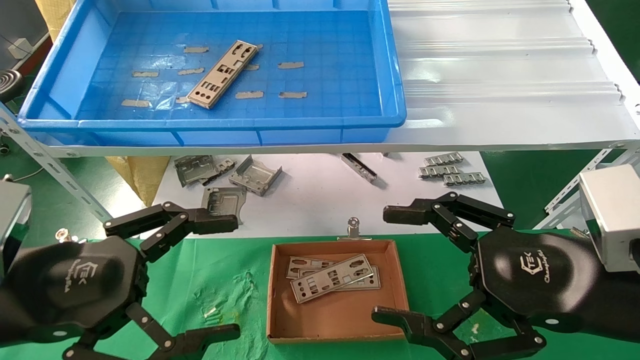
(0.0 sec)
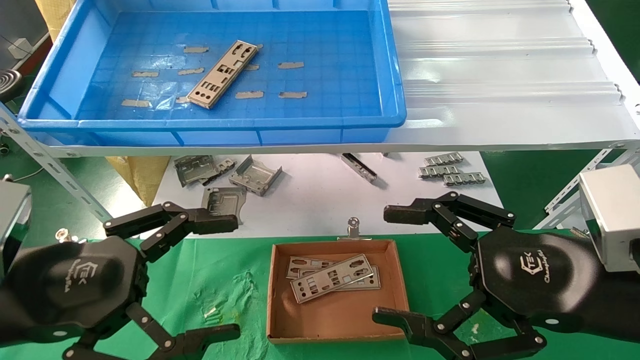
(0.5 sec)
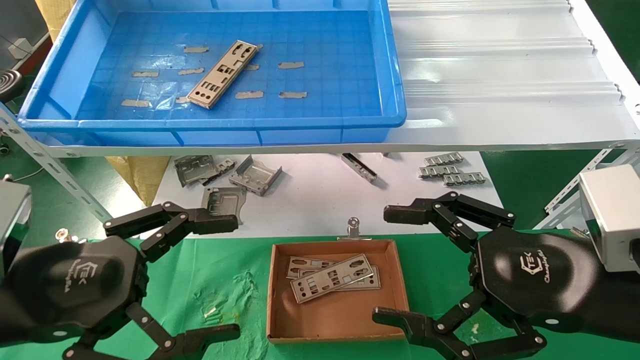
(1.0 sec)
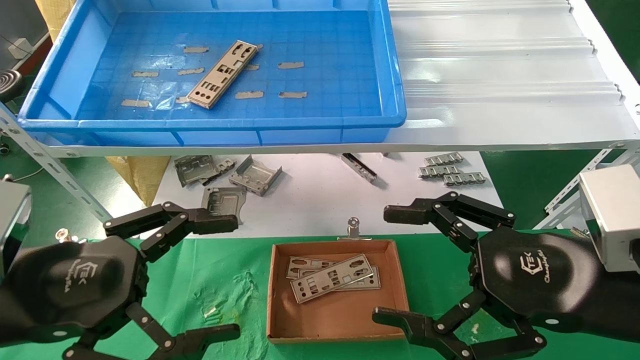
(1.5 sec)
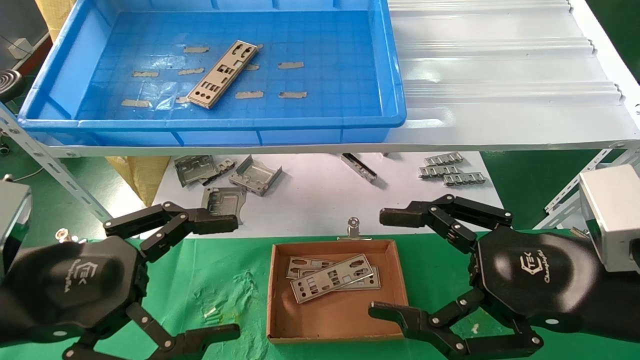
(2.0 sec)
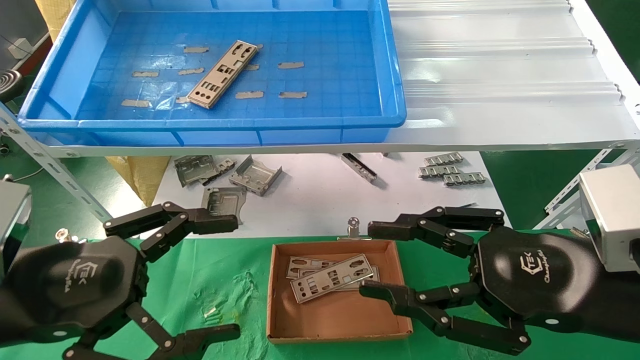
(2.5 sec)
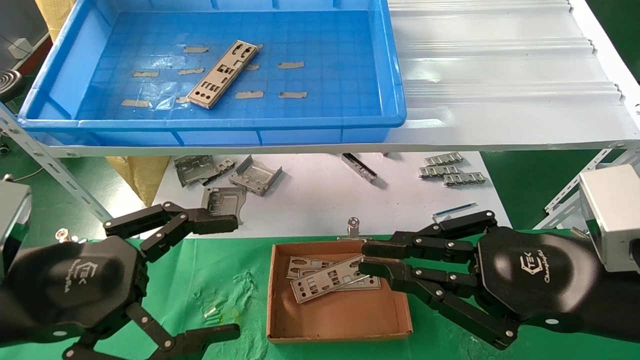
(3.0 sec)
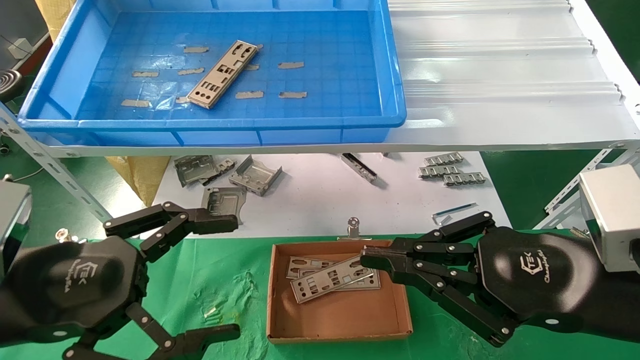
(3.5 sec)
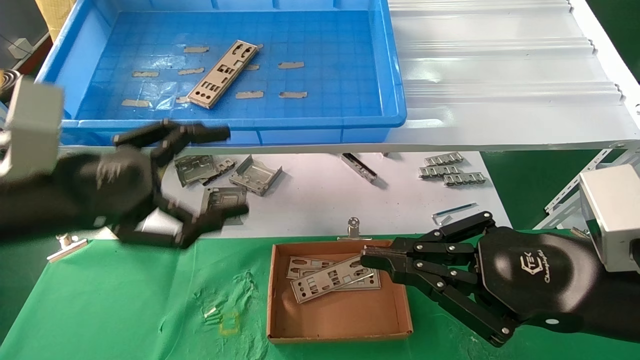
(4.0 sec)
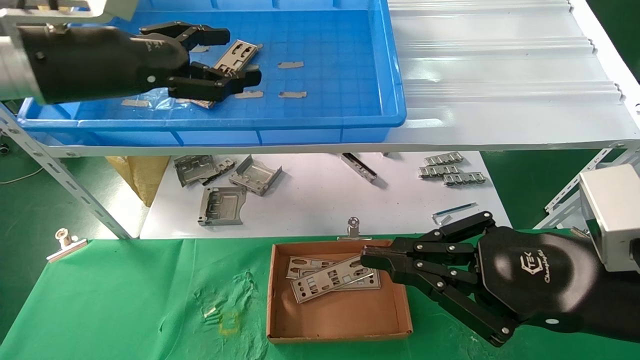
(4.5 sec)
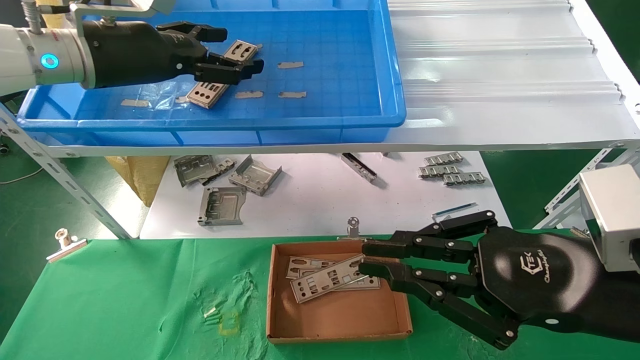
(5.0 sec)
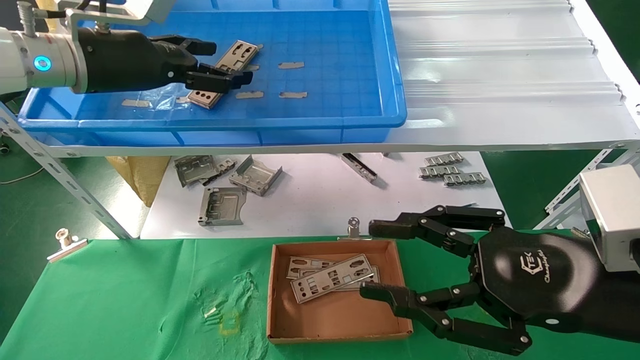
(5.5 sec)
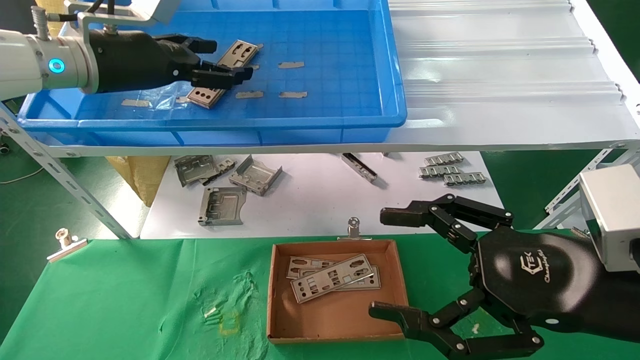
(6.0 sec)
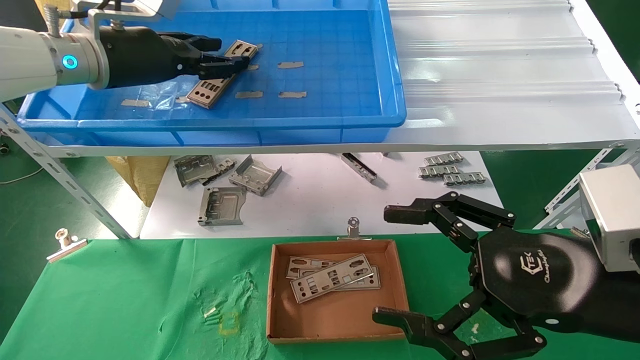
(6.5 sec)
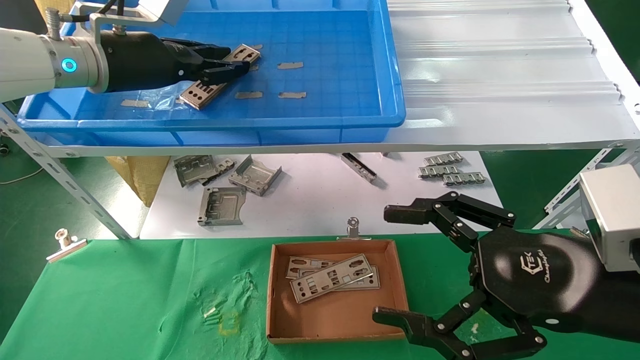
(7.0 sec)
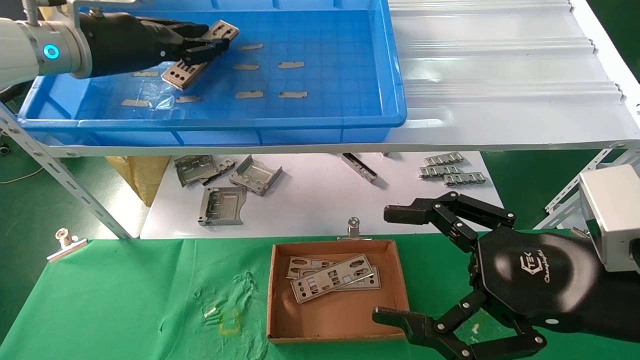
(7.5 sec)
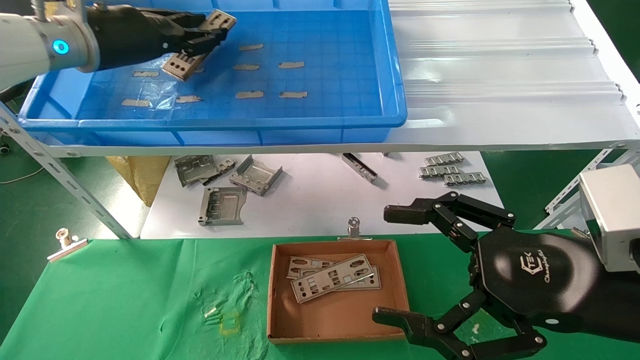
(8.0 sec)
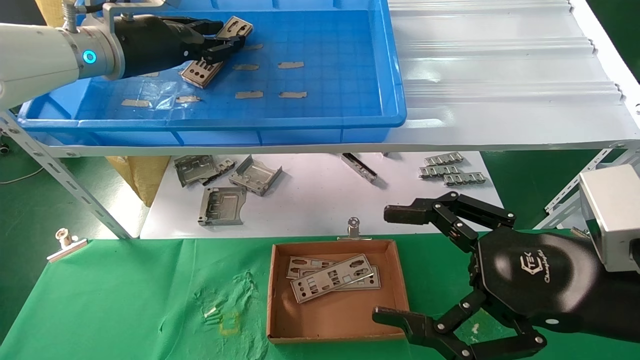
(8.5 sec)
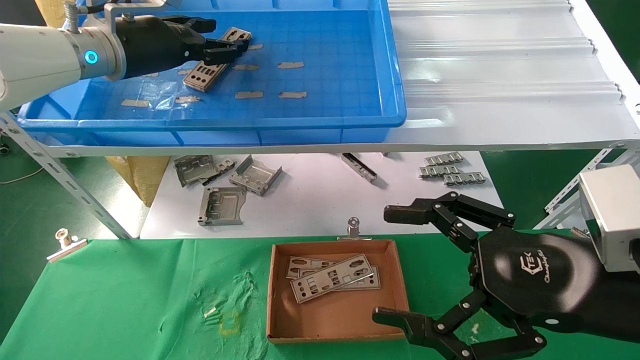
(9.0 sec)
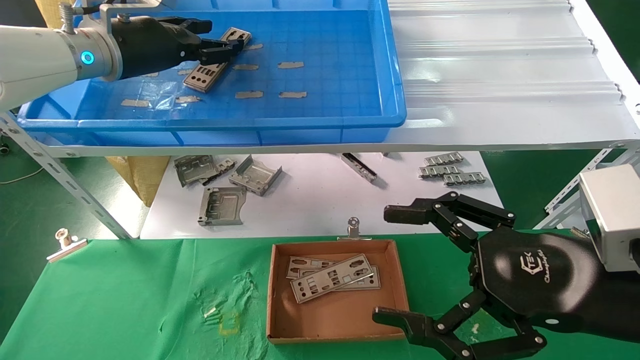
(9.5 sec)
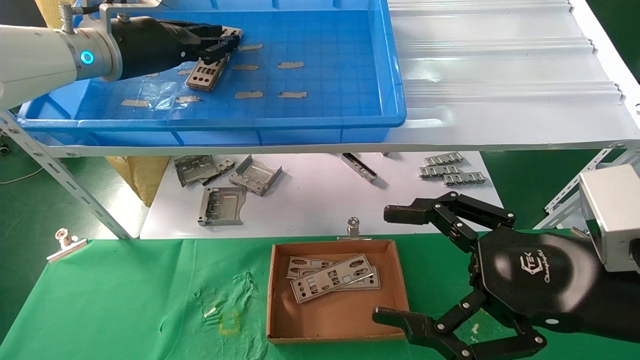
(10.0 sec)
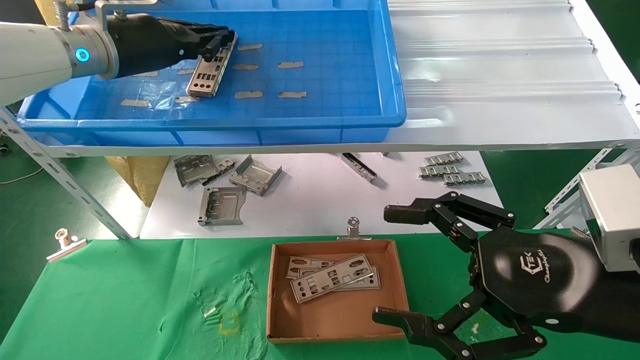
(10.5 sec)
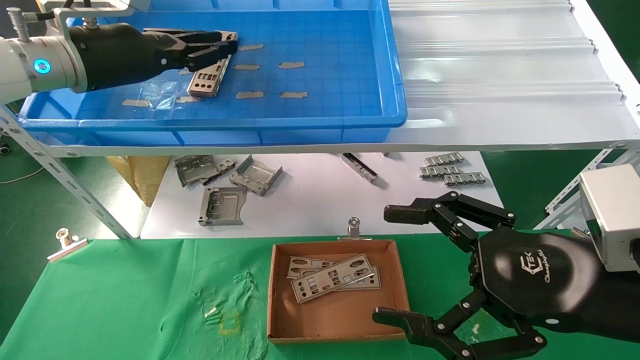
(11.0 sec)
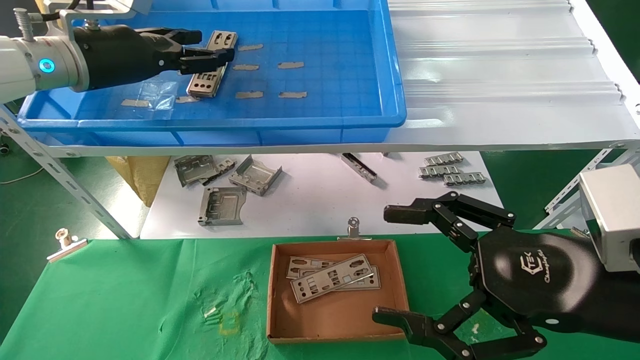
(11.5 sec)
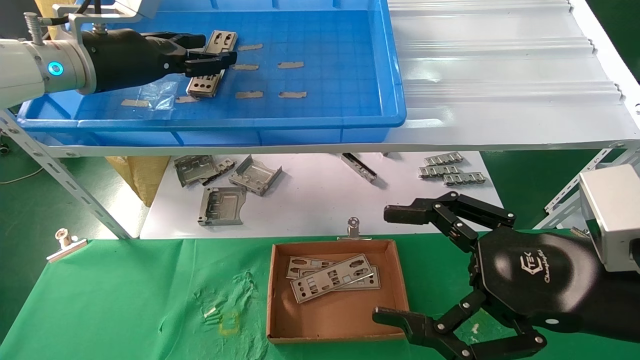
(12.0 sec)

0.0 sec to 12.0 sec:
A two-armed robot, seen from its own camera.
Task of the whole recording: pick up the parts on the tray and put them in the cardboard box.
0.0 sec to 2.0 sec: Both grippers stay put.
2.0 sec to 4.0 sec: The right gripper closes. The left gripper is displaced upward and forward by approximately 10 cm.
4.0 sec to 6.0 sec: The left gripper goes about 20 cm forward and upward. The right gripper opens its fingers.
6.0 sec to 8.0 sec: The left gripper closes its fingers.
8.0 sec to 10.0 sec: The grippers stay close to where they were, moving slightly.
10.0 sec to 12.0 sec: The left gripper opens its fingers.

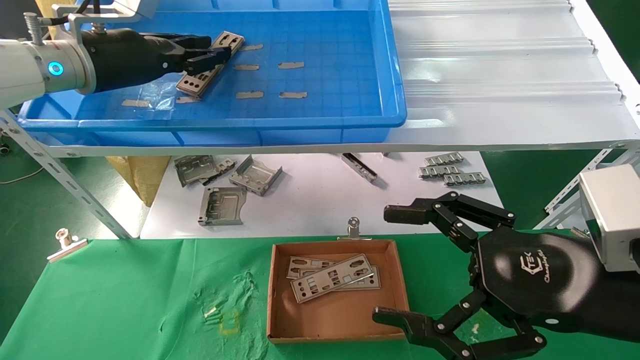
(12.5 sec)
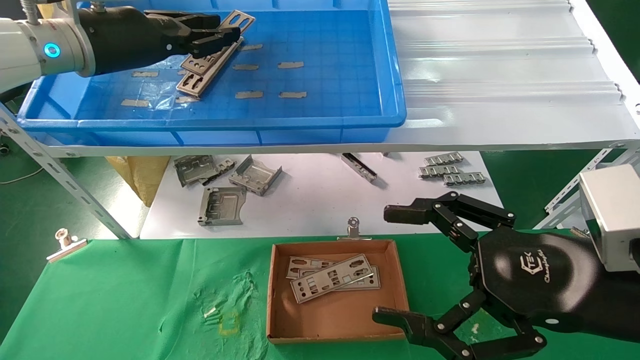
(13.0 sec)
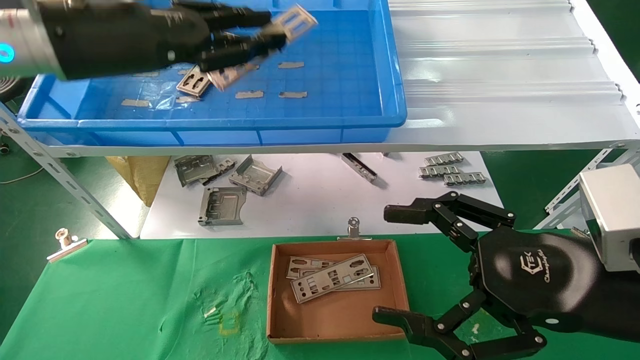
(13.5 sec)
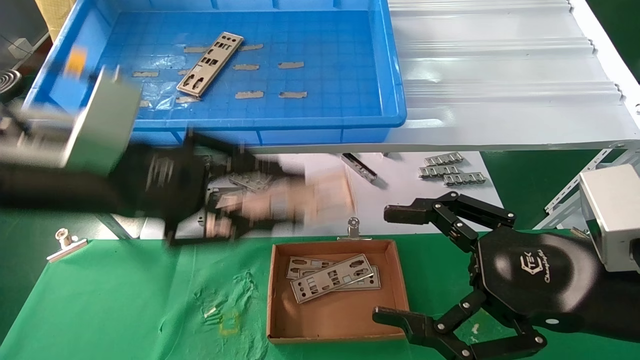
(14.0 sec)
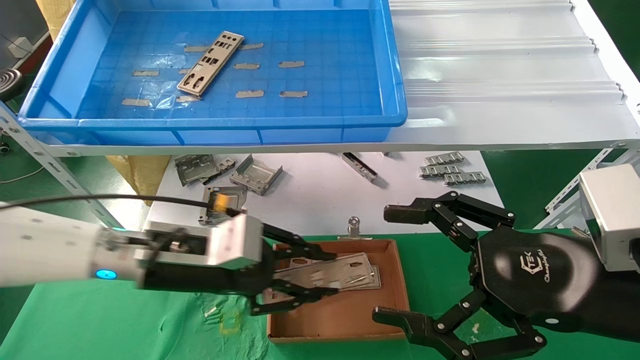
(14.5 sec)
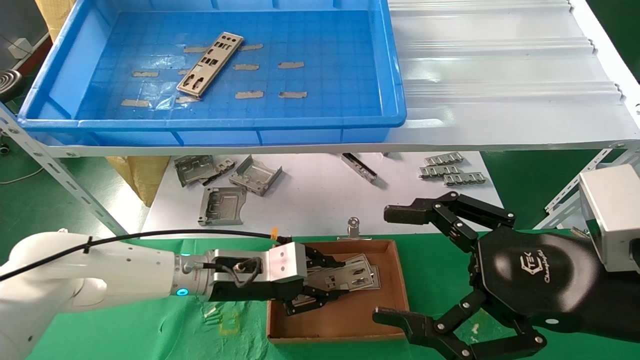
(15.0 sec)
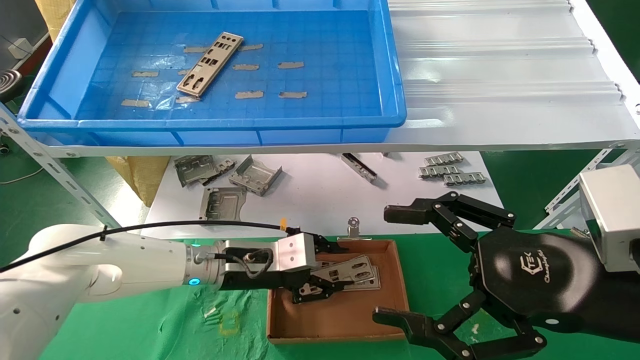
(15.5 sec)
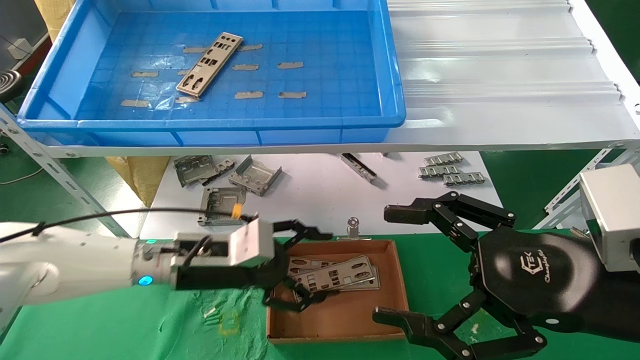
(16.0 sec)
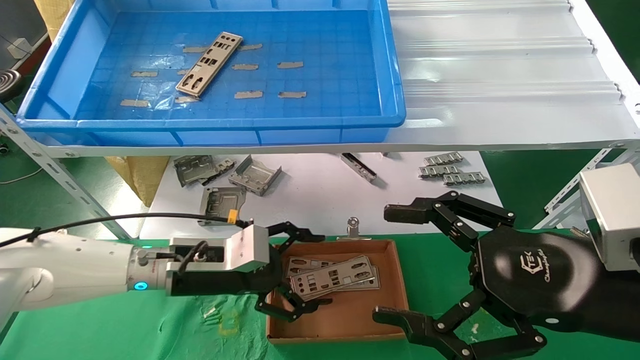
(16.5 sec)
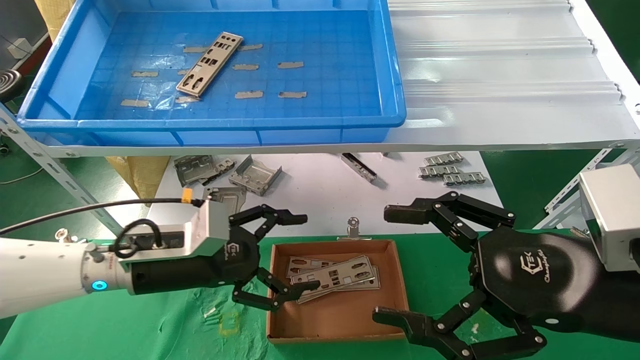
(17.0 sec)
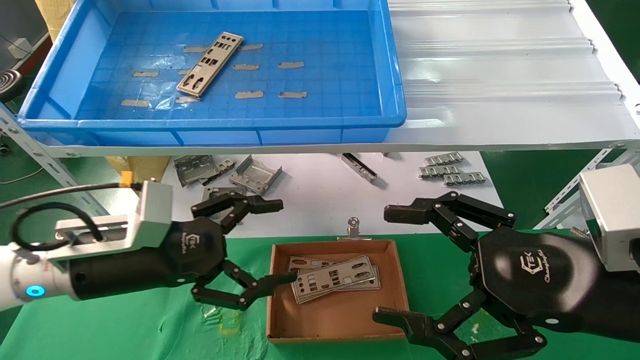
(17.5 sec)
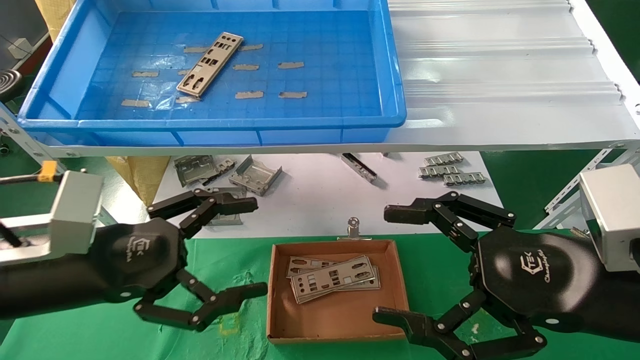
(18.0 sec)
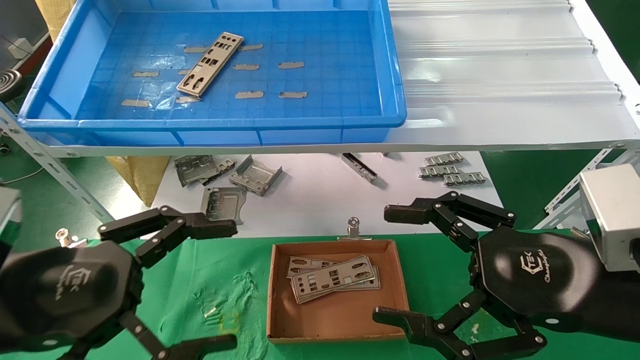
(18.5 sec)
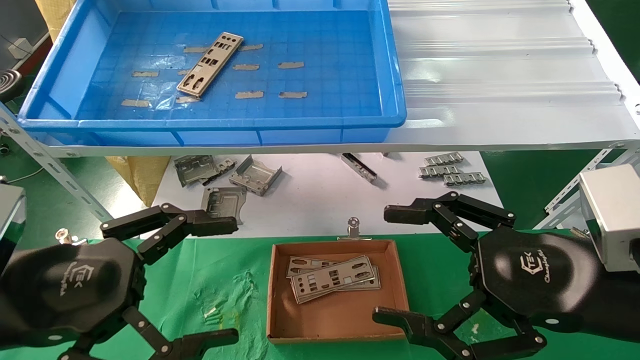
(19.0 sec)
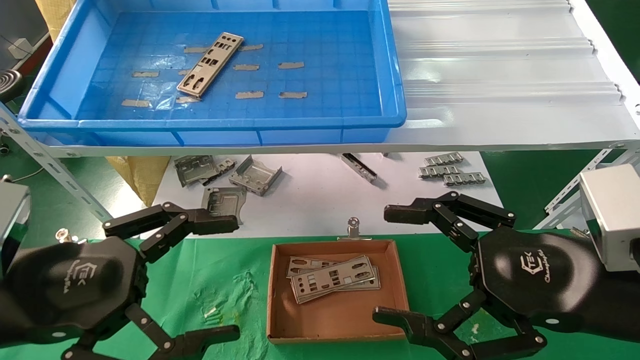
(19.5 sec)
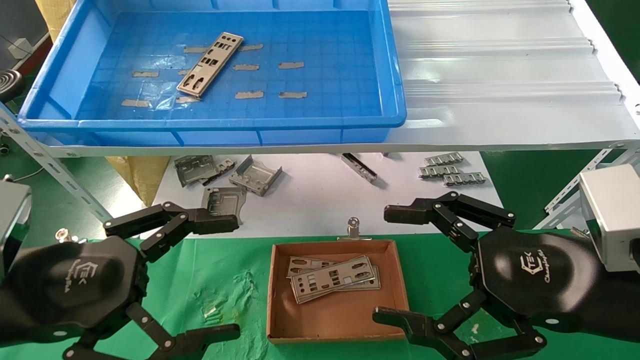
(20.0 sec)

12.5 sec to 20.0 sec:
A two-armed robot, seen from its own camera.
Task of the whole recording: pick up the parts on the tray and put them in the cardboard box.
Step, 13.0 sec to 15.5 sec: Place the IO bracket into the ingredient slot.
12.5 sec to 14.5 sec: The left gripper moves downward, to the right and backward, about 25 cm.
14.5 sec to 16.5 sec: The left gripper opens its fingers.
16.5 sec to 18.0 sec: The left gripper goes about 15 cm backward, to the left and upward.
18.0 sec to 20.0 sec: The left gripper heads backward, covering approximately 5 cm.
